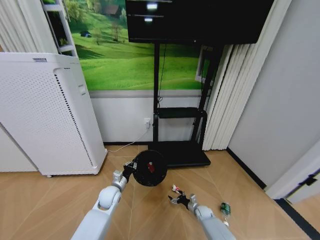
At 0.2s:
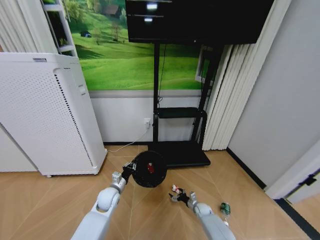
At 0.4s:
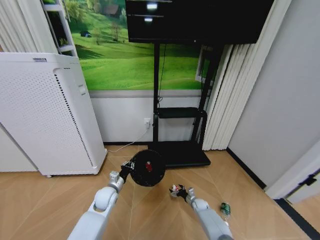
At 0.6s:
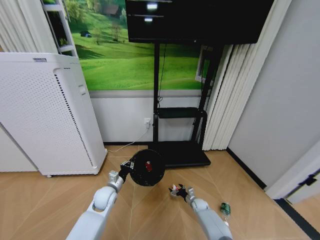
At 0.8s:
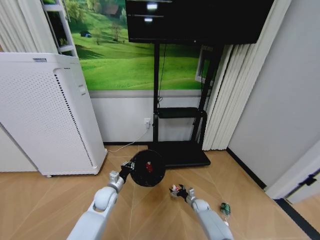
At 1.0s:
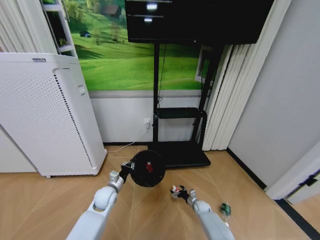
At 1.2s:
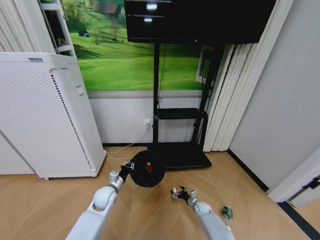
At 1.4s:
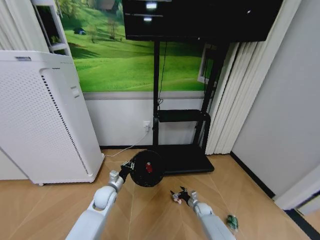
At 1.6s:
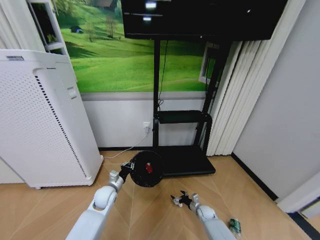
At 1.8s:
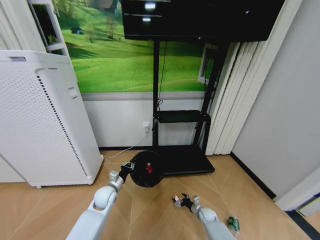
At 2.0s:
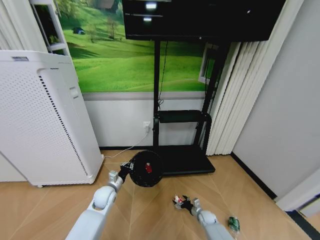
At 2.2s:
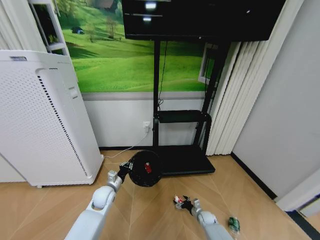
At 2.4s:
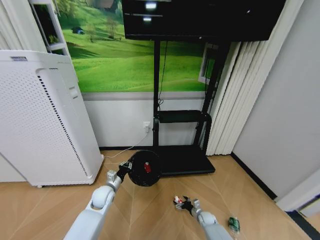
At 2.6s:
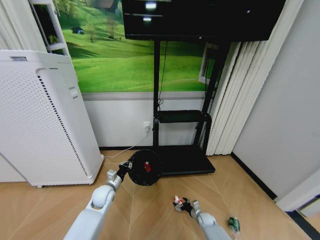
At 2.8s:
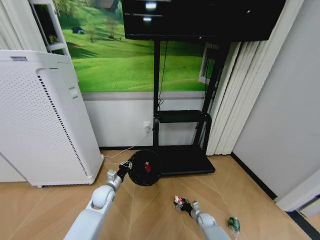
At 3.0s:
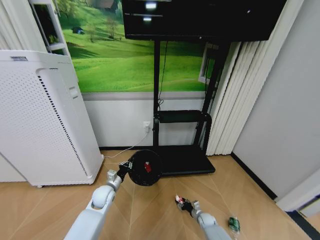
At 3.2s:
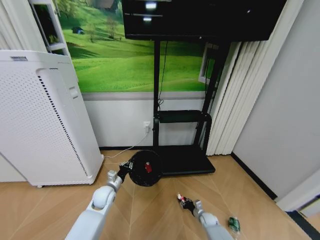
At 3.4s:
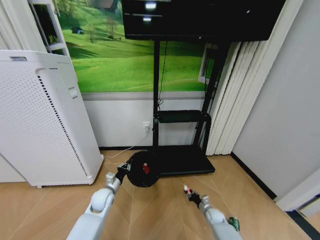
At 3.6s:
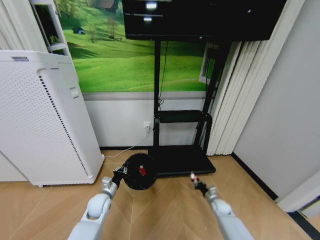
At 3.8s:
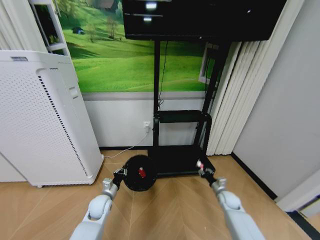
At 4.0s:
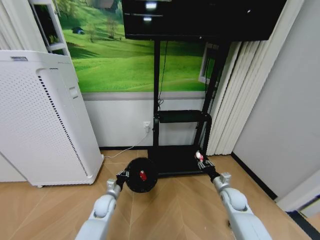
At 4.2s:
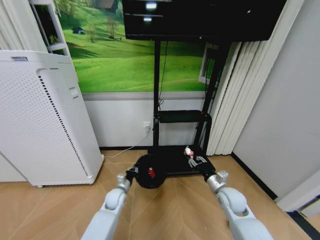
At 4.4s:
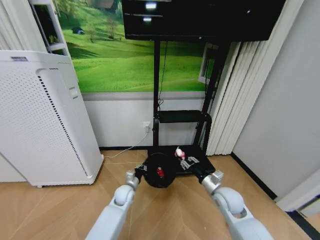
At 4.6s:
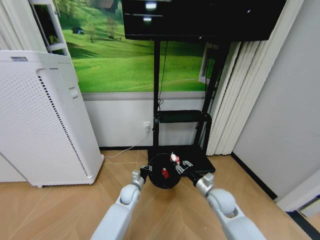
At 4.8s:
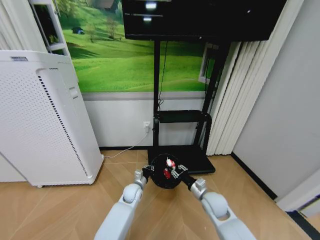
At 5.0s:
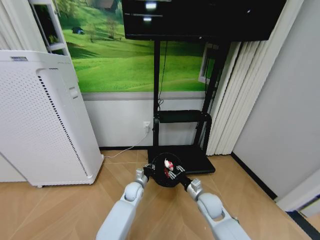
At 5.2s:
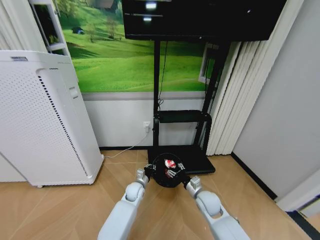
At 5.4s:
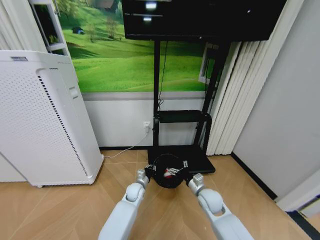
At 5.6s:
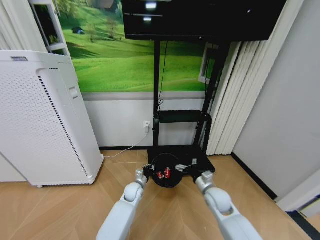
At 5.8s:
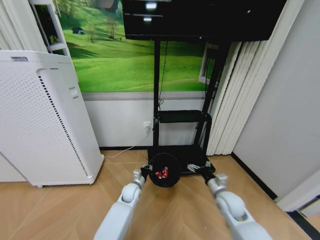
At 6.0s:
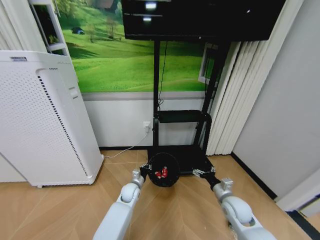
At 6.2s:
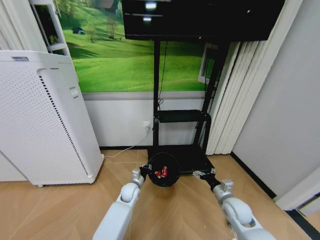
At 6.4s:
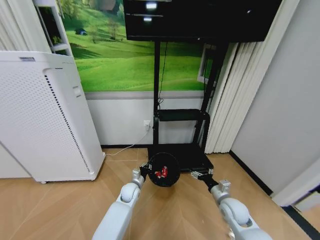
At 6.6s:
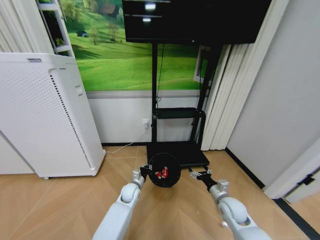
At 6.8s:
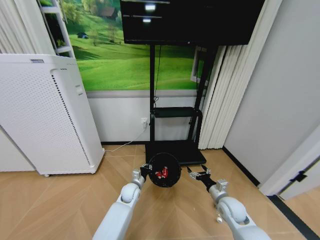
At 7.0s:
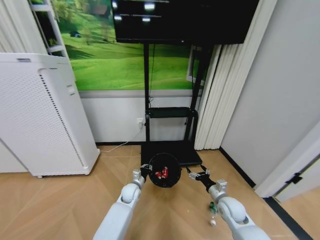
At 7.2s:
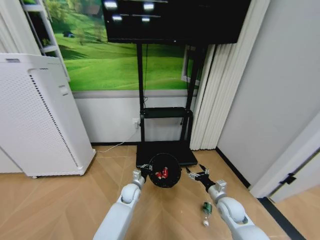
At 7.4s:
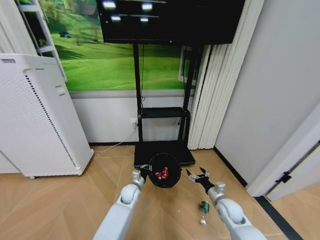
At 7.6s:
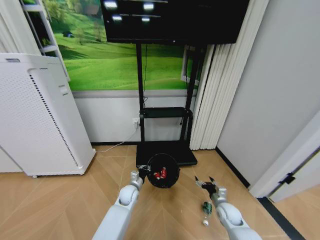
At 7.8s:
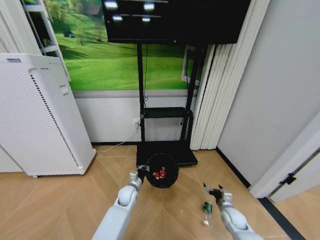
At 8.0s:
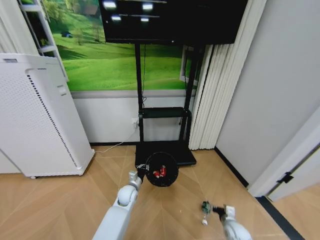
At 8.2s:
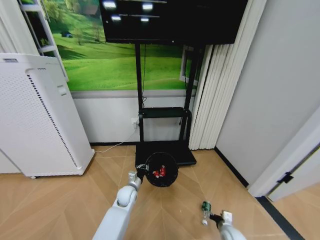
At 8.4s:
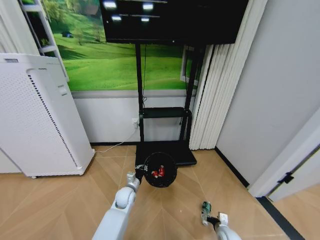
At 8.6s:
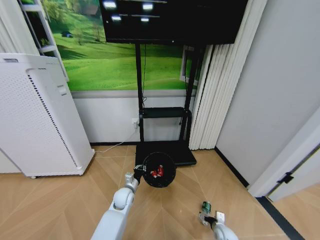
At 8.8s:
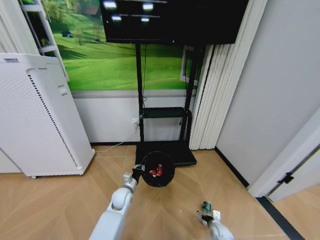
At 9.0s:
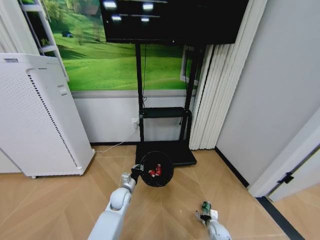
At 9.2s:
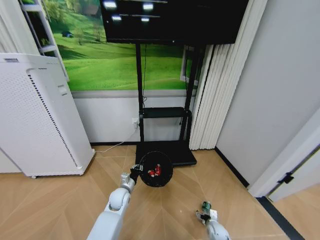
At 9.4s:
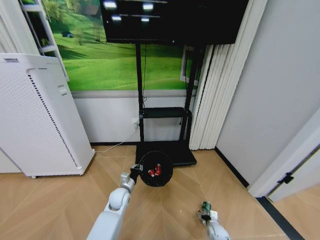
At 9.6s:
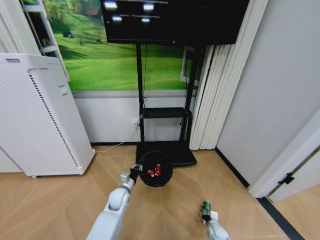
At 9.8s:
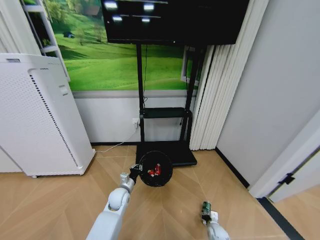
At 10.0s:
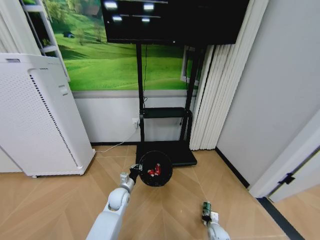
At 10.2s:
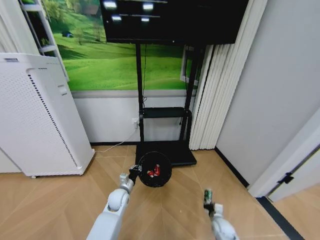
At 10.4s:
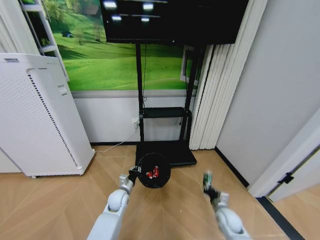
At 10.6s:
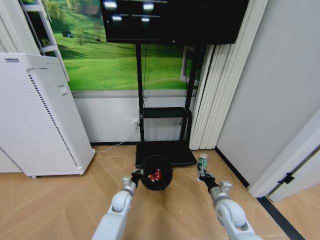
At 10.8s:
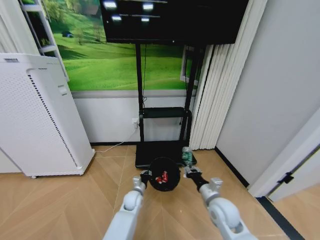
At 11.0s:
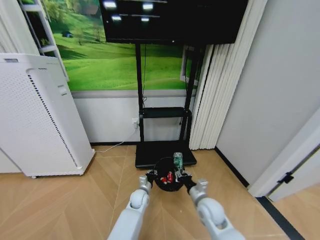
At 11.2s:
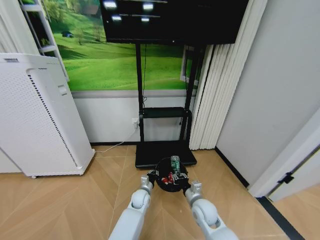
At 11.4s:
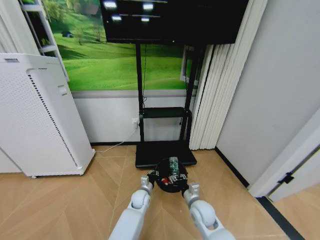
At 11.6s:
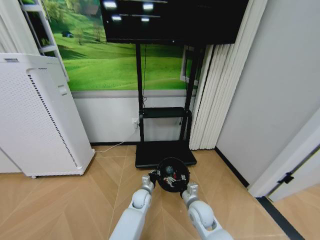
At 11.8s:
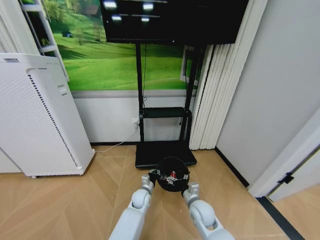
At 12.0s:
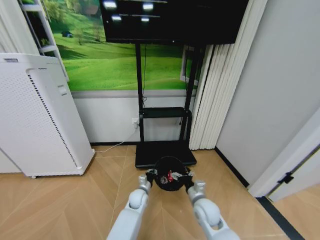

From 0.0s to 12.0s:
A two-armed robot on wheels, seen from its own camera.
Task of the whole recording: Pick up the trash bin and place the garbage on the floor into it.
From 1.6s to 3.0s: The right gripper moves about 5 cm, and closes.
From 3.0s to 4.4s: The right gripper shifts roughly 35 cm upward, and closes its fingers, while the left gripper shifts roughly 10 cm to the right.
From 4.4s to 6.0s: The right gripper ends up approximately 5 cm from where it was, and opens up.
From 6.0s to 7.6s: The right gripper shifts roughly 10 cm downward.
From 7.6s to 9.0s: The right gripper travels downward by approximately 15 cm.
From 9.0s to 10.4s: The right gripper heads upward, covering roughly 15 cm, and closes.
From 10.4s to 12.0s: The right gripper is displaced to the left and upward by roughly 15 cm, and opens its fingers. The left gripper moves to the right, roughly 10 cm.

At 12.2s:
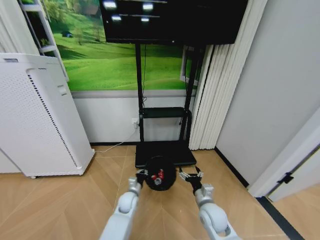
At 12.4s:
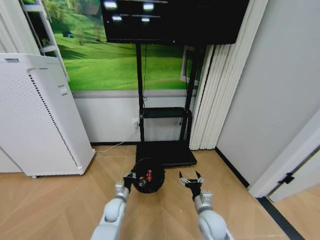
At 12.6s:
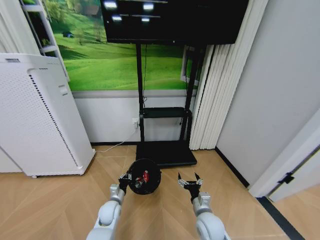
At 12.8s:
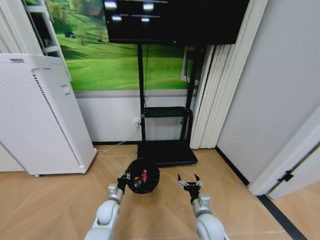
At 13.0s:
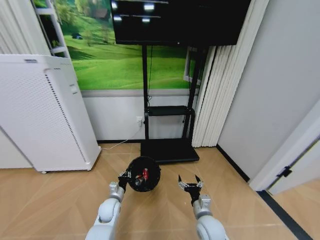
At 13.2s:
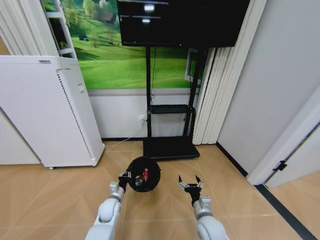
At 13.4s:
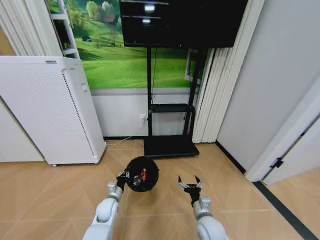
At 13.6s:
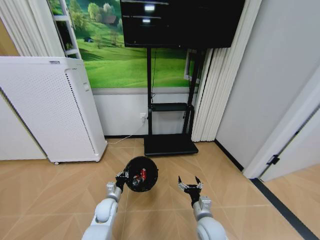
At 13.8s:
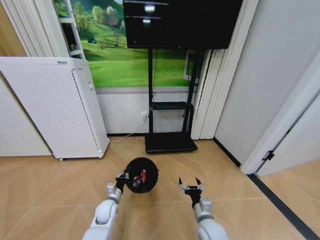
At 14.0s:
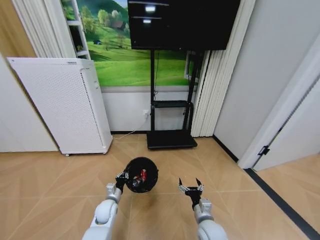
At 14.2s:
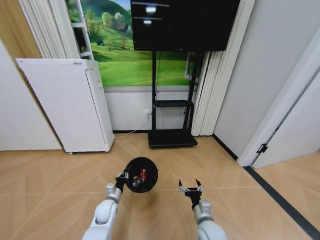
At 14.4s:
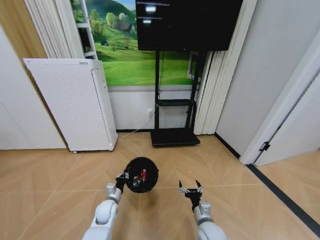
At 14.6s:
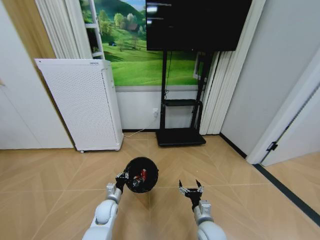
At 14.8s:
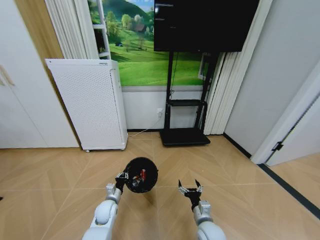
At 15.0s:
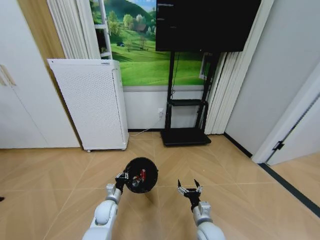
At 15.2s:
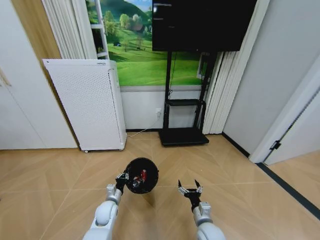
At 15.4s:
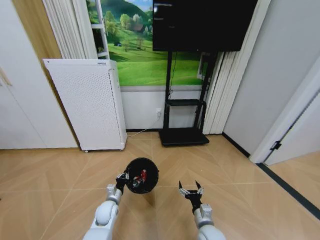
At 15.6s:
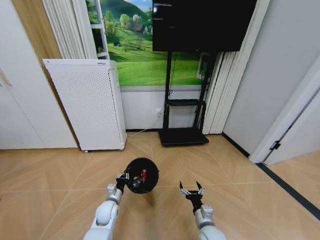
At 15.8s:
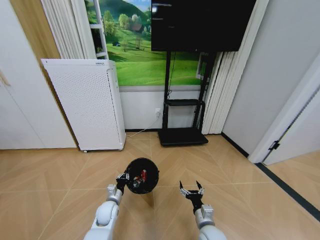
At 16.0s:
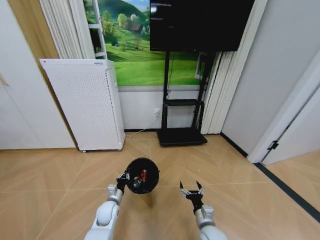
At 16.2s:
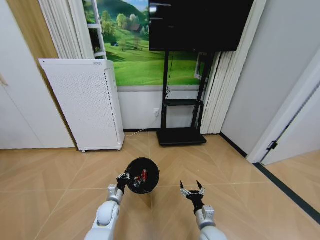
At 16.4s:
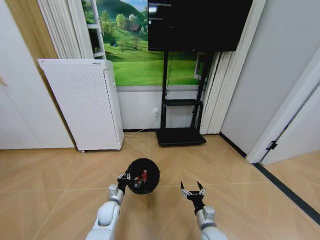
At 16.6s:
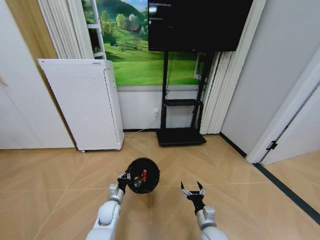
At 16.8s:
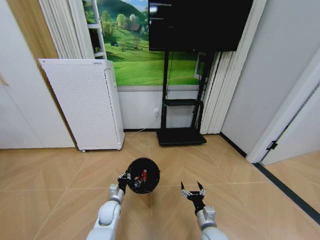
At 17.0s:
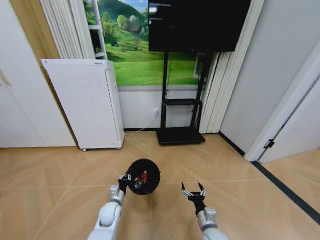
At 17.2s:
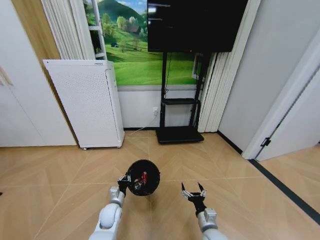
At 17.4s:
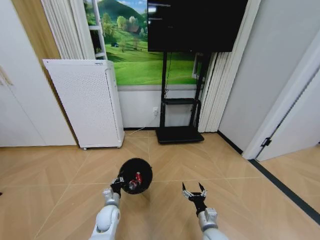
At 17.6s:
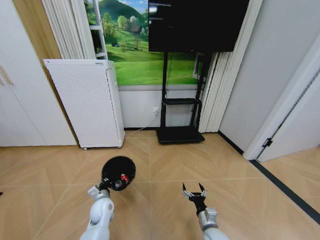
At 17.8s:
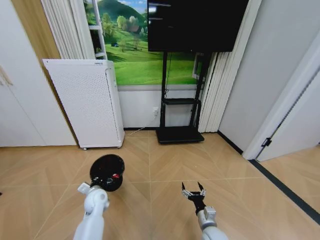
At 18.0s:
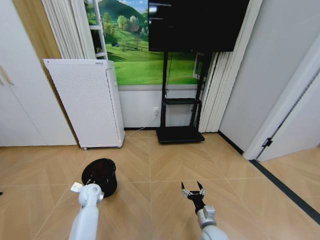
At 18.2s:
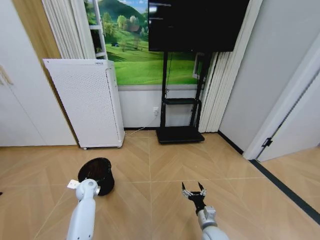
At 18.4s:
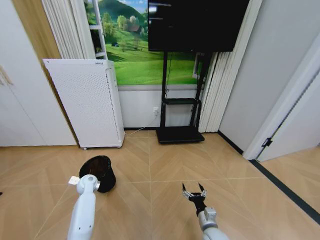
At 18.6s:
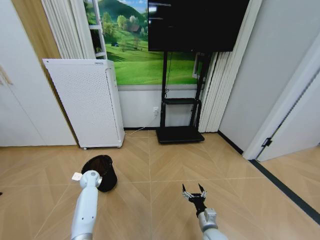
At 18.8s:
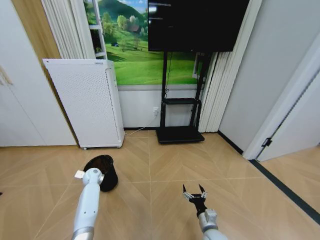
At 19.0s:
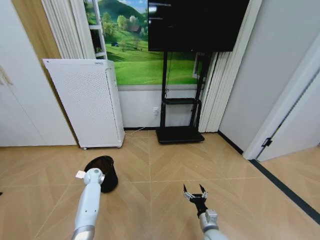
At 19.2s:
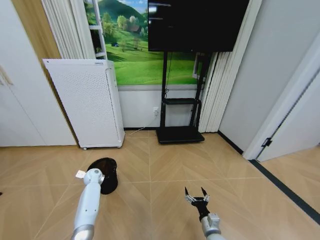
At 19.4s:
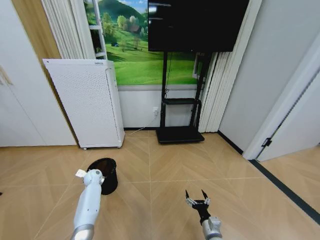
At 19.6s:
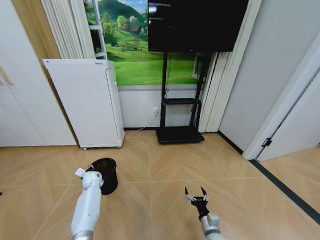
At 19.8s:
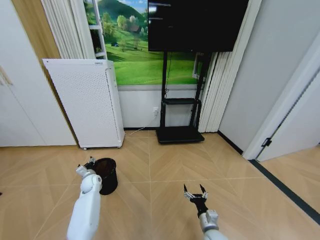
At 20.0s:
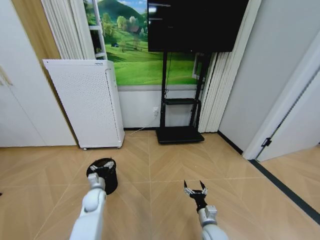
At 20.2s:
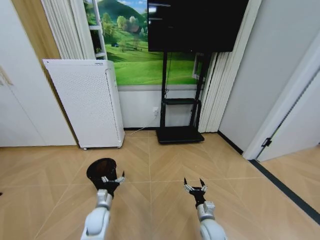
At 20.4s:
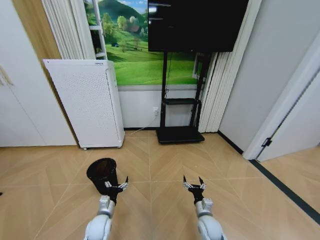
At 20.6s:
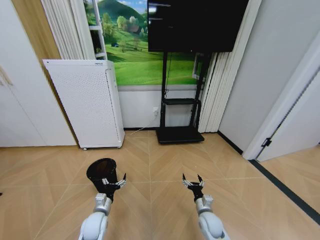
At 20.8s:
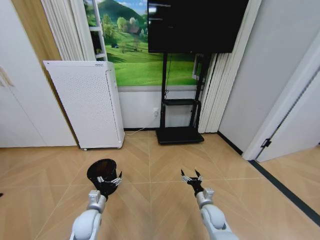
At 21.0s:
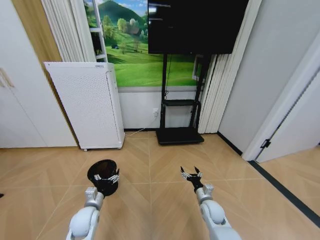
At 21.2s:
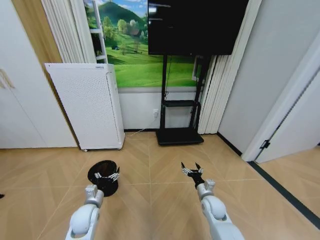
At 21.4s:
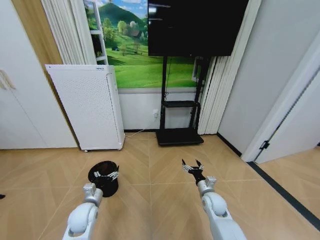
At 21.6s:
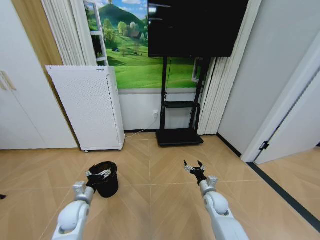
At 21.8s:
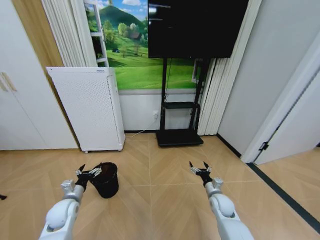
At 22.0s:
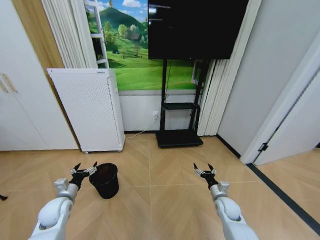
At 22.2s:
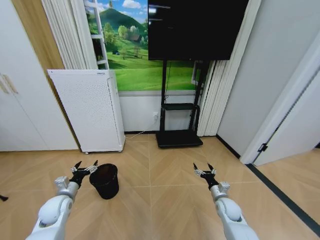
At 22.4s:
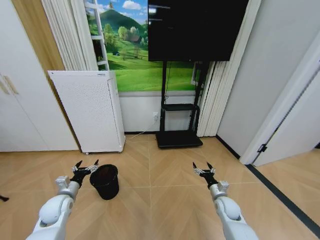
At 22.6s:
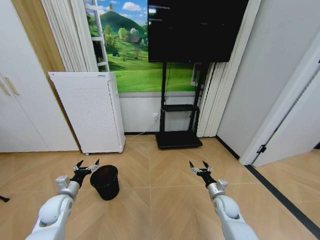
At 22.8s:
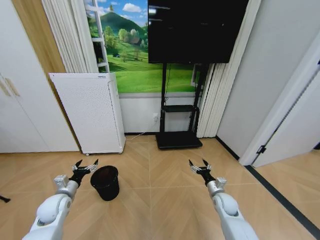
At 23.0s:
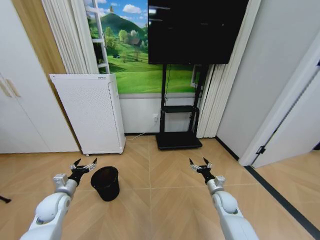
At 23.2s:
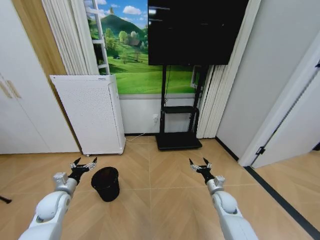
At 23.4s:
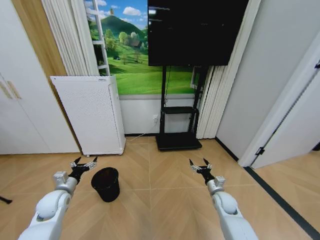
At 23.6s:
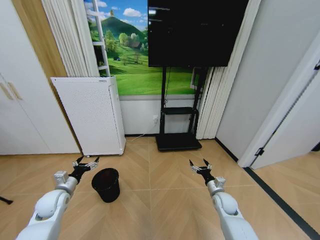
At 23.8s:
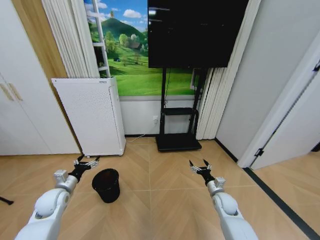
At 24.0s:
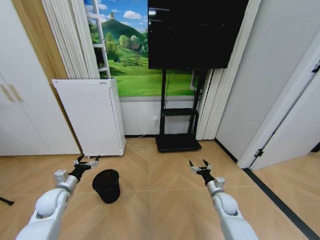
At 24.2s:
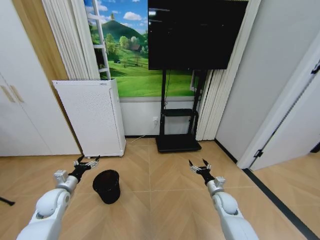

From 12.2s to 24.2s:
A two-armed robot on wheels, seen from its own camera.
Task of the whole recording: Pick up the trash bin and place the garbage on the floor into it.
From 12.2s to 13.8s: The right gripper shifts by approximately 5 cm. Meanwhile the left gripper heads to the left, covering some 10 cm.
From 15.2s to 16.6s: The grippers stay close to where they were, moving slightly.
From 16.6s to 18.2s: The left gripper goes about 15 cm to the left and forward.
From 18.2s to 19.8s: The left gripper opens.
From 19.8s to 21.2s: The right gripper heads forward and upward, covering some 15 cm. The left gripper heads backward and to the right, covering roughly 20 cm.
From 21.2s to 22.6s: The left gripper travels to the left by about 10 cm, while the right gripper travels to the right by some 5 cm.
From 22.6s to 24.2s: The grippers make only small movements.
